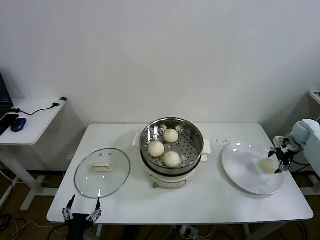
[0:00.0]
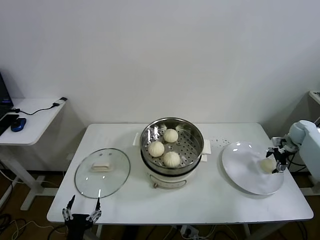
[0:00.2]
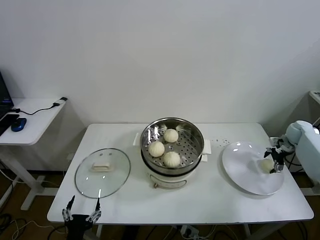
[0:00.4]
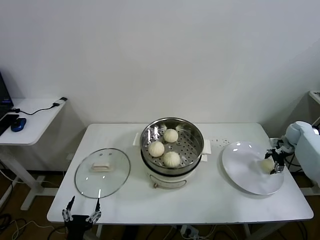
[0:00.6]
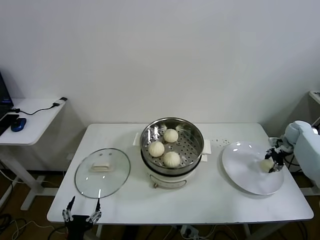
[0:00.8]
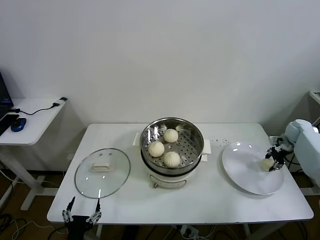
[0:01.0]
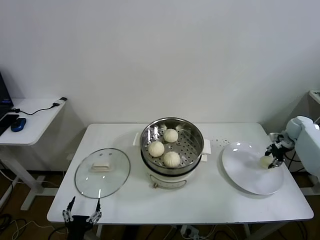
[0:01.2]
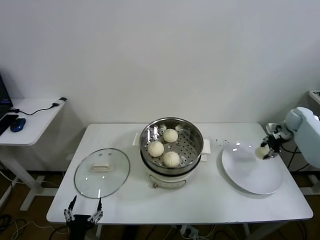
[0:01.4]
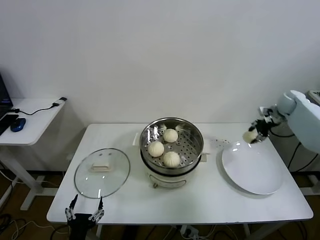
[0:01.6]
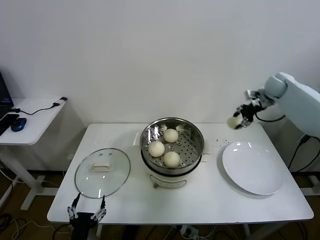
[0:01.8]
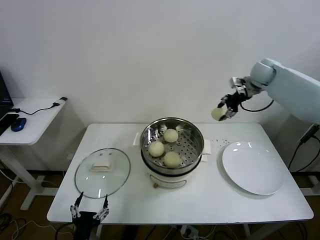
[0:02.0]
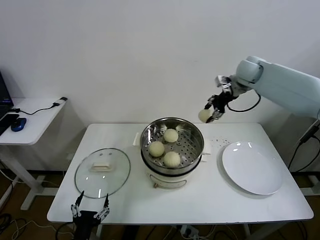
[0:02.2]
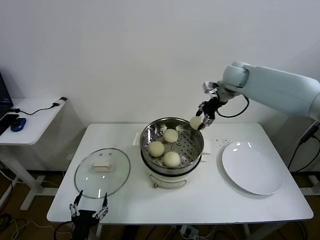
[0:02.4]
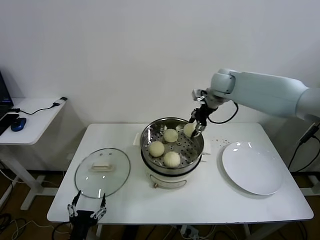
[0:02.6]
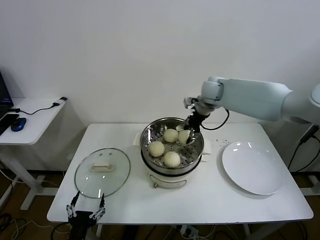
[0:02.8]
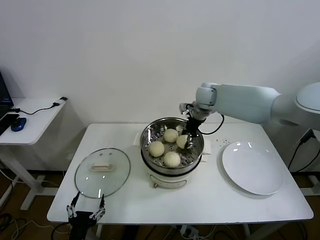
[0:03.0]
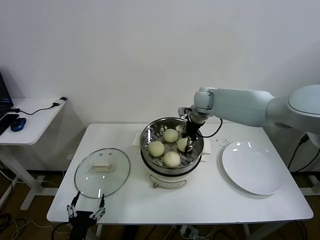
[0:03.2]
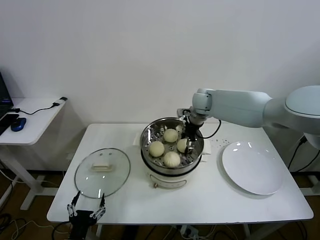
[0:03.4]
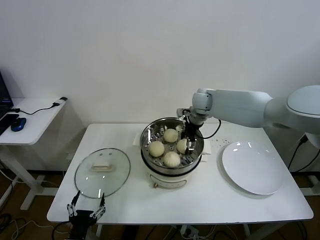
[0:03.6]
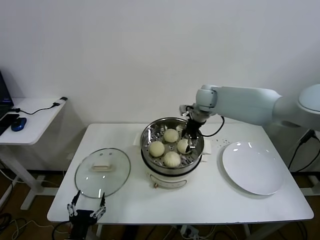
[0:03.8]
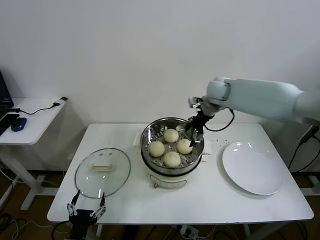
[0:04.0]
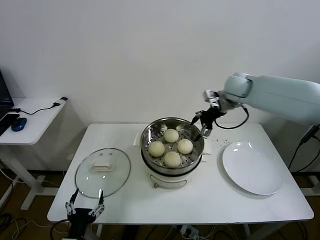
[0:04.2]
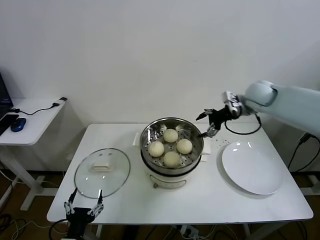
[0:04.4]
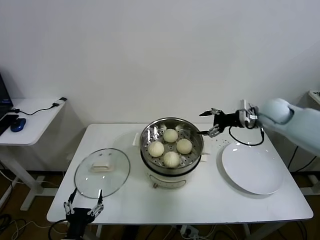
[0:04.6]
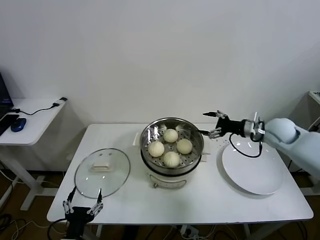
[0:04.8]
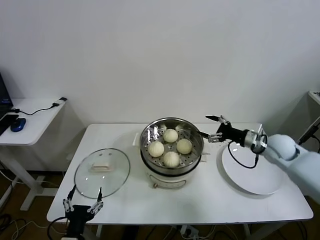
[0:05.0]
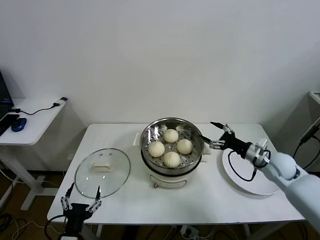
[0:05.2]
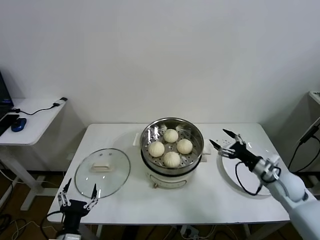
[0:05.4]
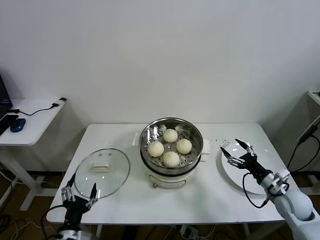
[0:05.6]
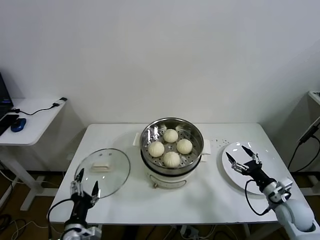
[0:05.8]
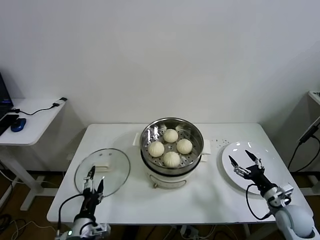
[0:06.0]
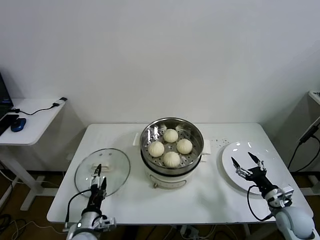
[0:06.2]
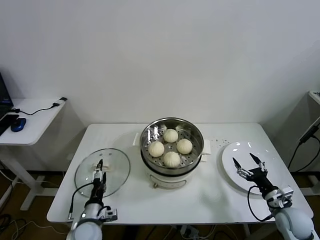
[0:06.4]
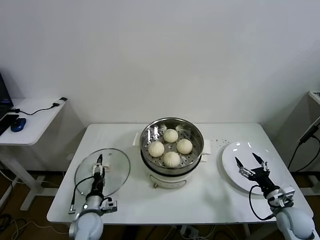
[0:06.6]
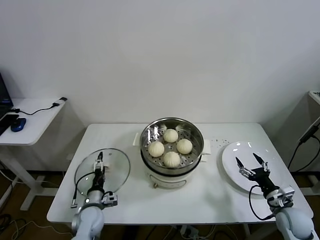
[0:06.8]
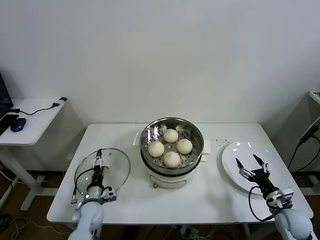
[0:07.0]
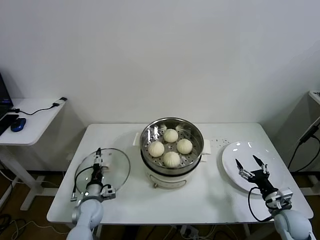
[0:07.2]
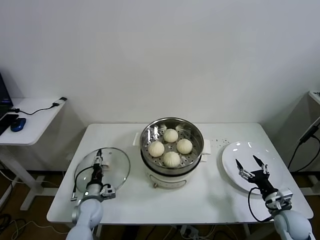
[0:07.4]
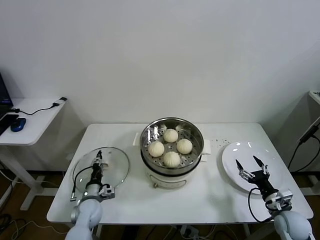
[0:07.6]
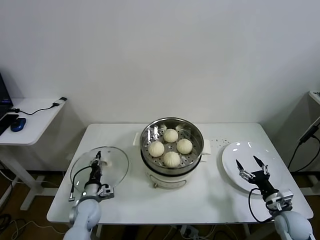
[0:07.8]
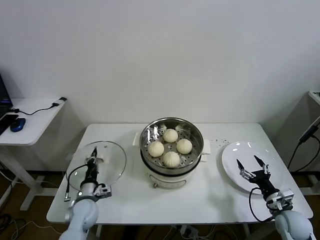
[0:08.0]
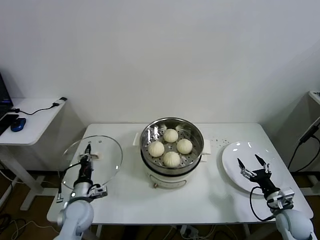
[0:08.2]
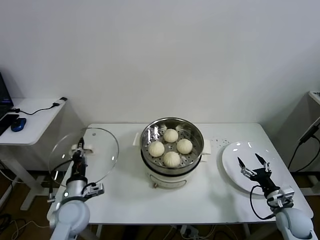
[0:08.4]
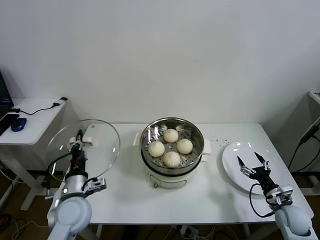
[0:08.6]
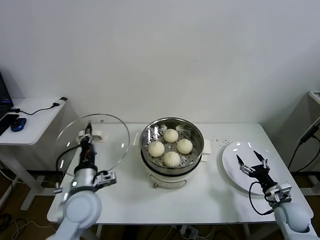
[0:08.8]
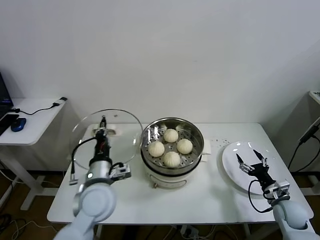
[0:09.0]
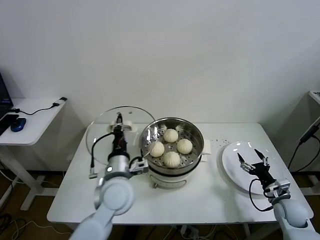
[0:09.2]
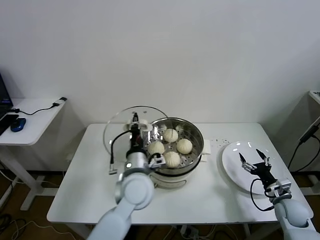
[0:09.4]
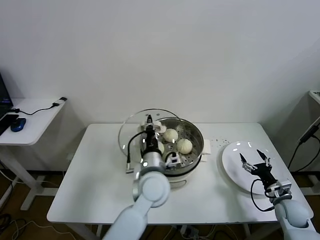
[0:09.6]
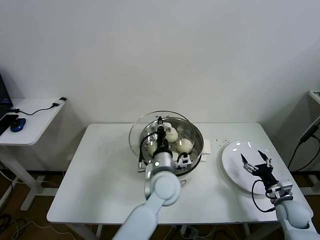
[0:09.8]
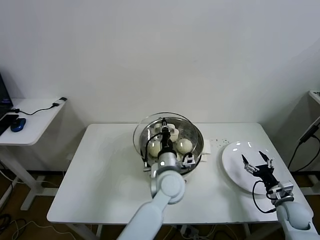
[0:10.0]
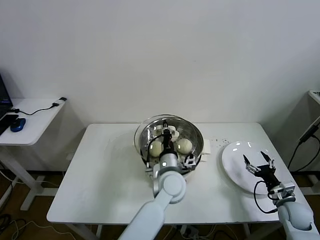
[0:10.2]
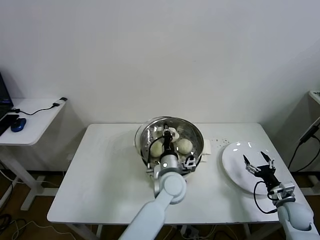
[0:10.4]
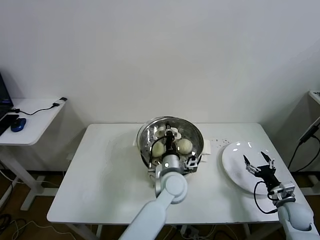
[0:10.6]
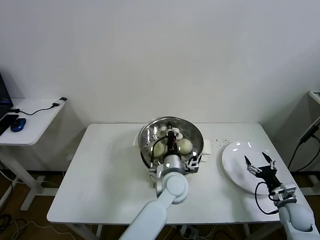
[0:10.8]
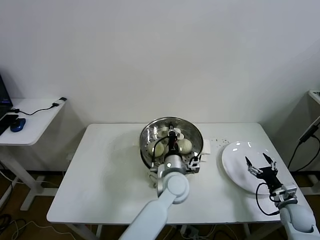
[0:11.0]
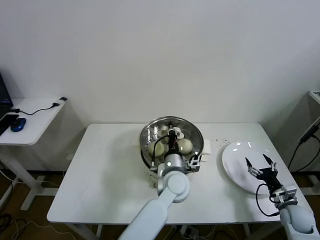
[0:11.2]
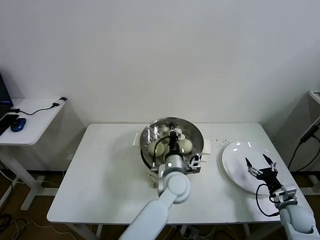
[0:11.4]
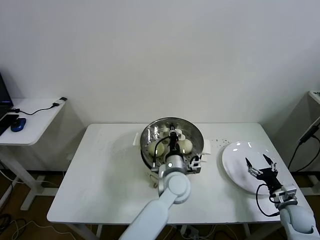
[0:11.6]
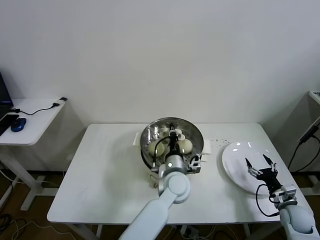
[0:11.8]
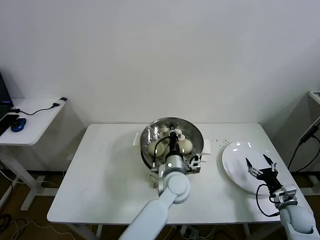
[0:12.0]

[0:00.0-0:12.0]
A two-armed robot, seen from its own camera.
Task of the whole recording: take steamed baozi put them in steamer.
Step, 0:01.0 to 0:03.8: Place the baozi on the steamer with right gripper.
Step, 0:04.0 to 0:07.8: Grasp the pot lid with left gripper.
0:00.0 to 0:01.6: The right gripper heads upward, to the left and forward, covering some 15 cm, and closes up.
0:01.6 to 0:03.0: The right gripper travels to the left by approximately 30 cm.
0:03.0 to 0:04.4: The right gripper travels to the right and backward by approximately 20 cm, and opens.
0:04.4 to 0:06.0: The left gripper heads forward, covering roughly 5 cm; the right gripper heads downward and backward, covering roughly 40 cm.
0:06.0 to 0:07.6: The left gripper heads forward and downward, covering some 20 cm, and closes its fingers.
0:07.6 to 0:09.0: The left gripper is displaced upward and to the right by approximately 25 cm, and closes.
0:09.0 to 0:10.4: The left gripper heads to the right, covering roughly 20 cm.
0:10.4 to 0:12.0: The grippers move only a little.

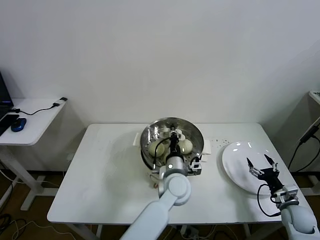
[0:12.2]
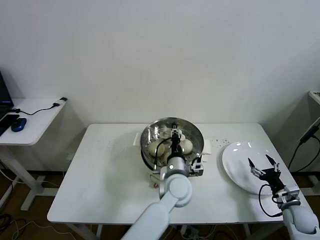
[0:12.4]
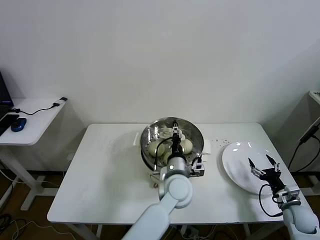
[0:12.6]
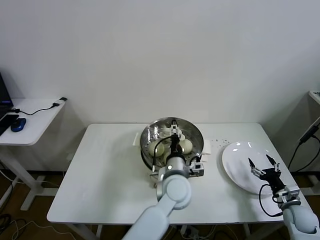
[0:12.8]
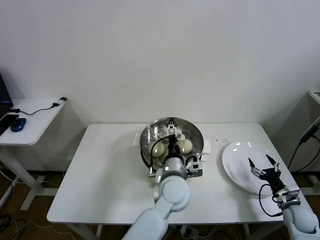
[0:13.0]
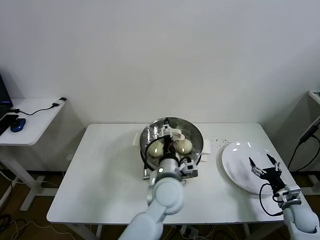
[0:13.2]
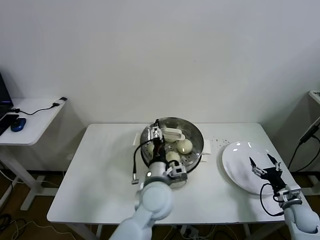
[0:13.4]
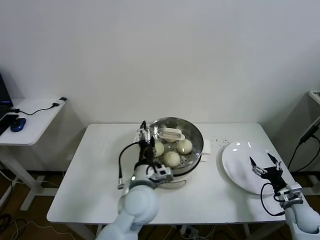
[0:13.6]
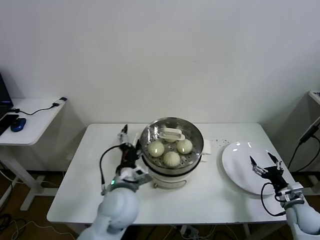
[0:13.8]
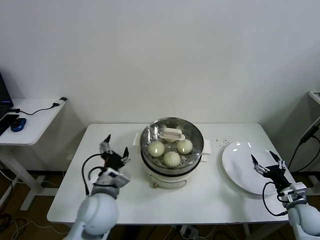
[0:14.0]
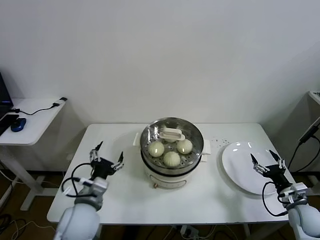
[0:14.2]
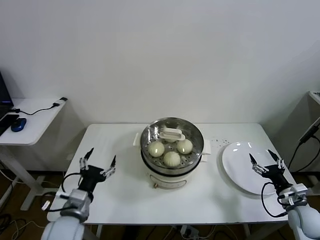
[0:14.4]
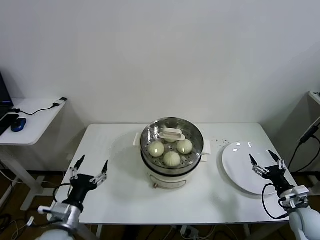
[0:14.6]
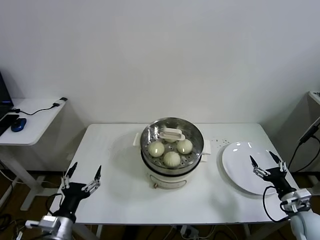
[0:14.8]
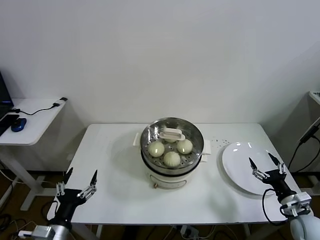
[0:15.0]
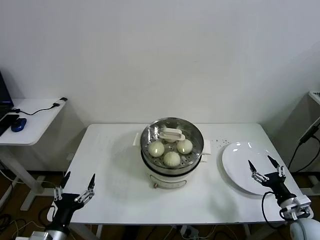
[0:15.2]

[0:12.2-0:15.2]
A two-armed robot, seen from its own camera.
Task of the whole recording: take steamed baozi put them in steamer.
0:12.2 to 0:13.8: The left gripper heads to the left, backward and upward, covering roughly 15 cm, and opens its fingers.
0:13.8 to 0:15.2: The right gripper shifts approximately 5 cm backward. Meanwhile the left gripper shifts roughly 25 cm to the left and backward.
